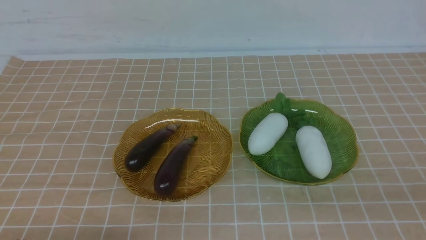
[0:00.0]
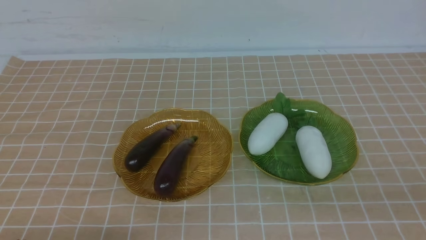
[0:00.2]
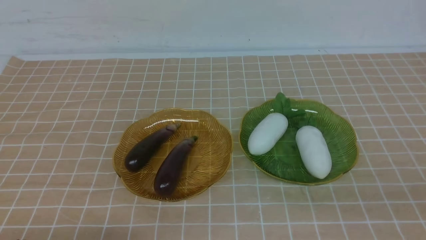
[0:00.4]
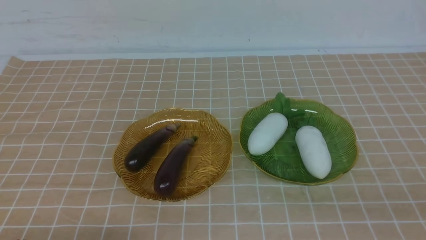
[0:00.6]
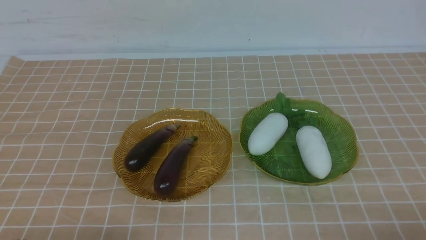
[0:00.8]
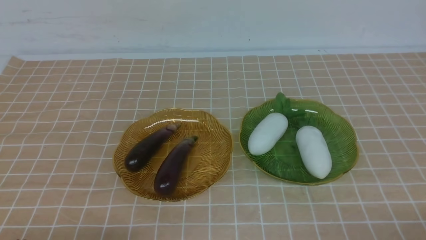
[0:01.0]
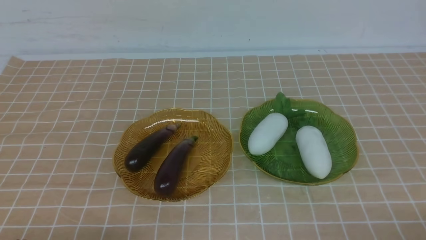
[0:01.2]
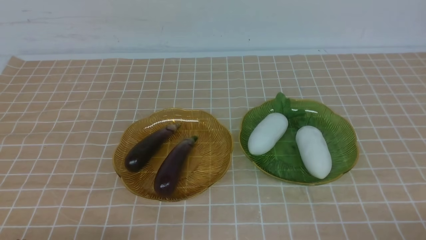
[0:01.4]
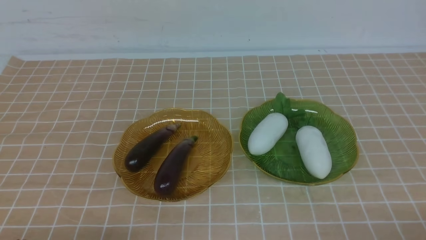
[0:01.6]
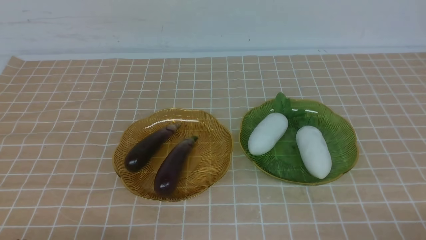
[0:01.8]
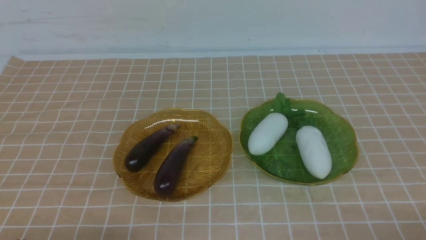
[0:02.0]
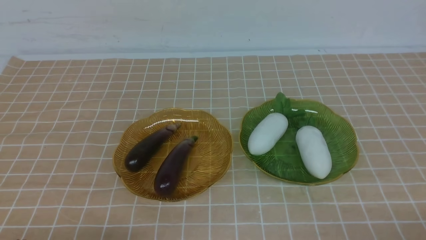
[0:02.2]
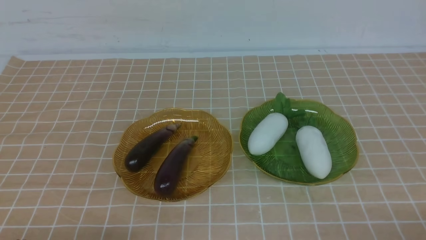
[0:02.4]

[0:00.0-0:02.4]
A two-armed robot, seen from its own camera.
0:01.2 to 0:02.4: The two grippers keep their place.
